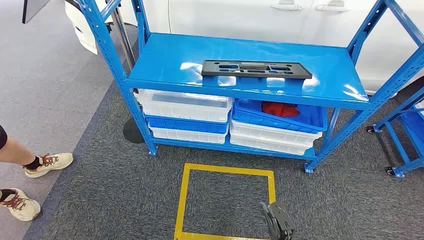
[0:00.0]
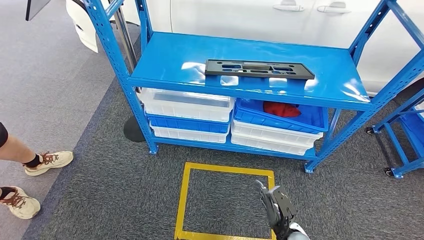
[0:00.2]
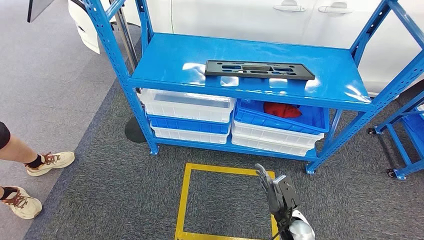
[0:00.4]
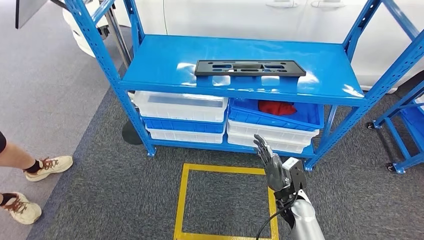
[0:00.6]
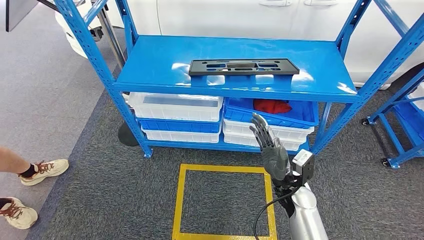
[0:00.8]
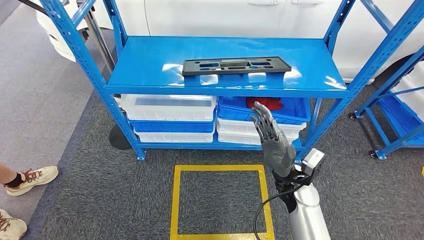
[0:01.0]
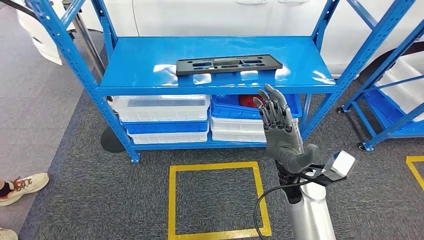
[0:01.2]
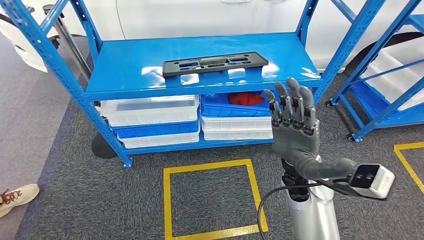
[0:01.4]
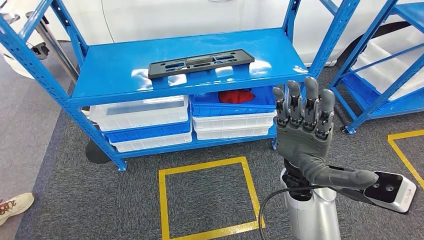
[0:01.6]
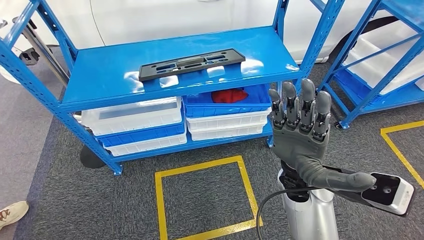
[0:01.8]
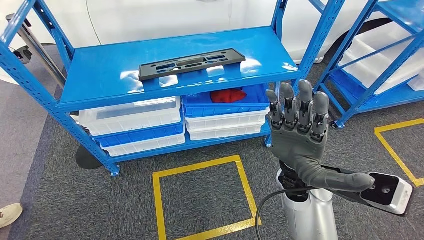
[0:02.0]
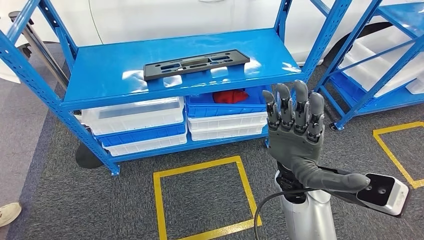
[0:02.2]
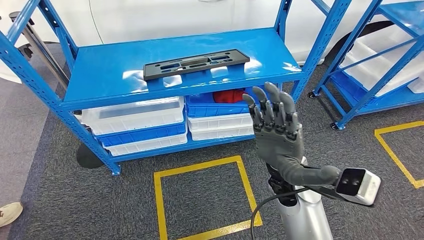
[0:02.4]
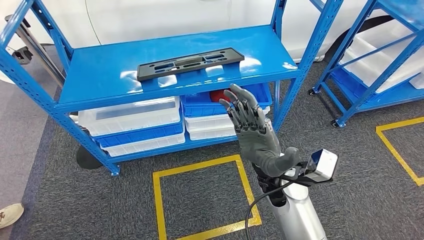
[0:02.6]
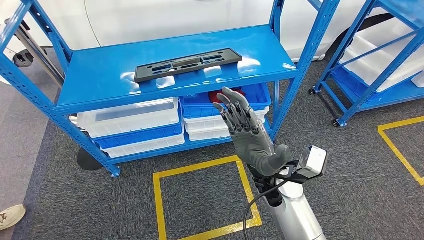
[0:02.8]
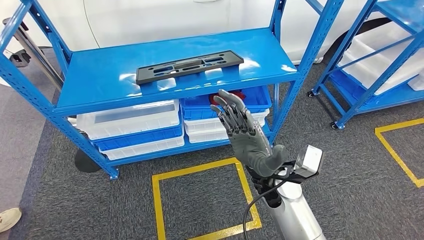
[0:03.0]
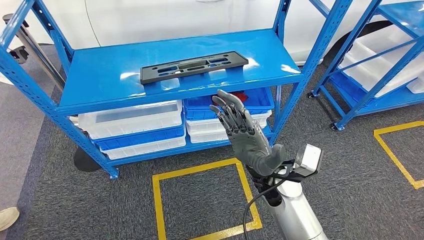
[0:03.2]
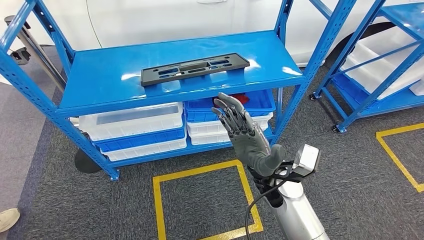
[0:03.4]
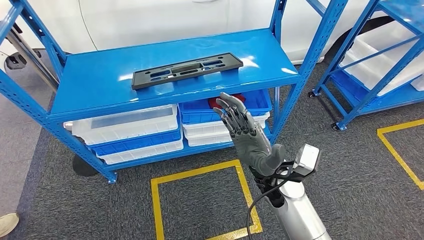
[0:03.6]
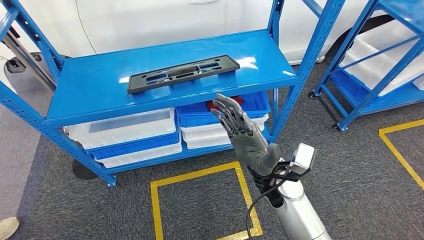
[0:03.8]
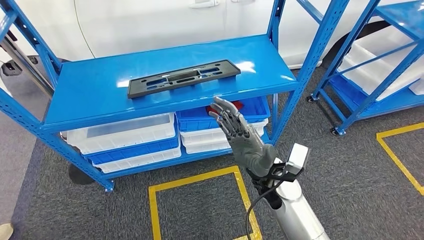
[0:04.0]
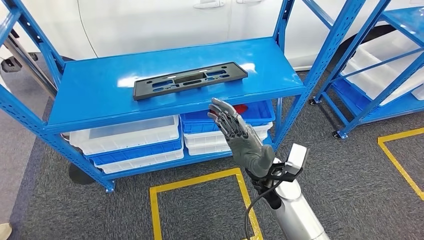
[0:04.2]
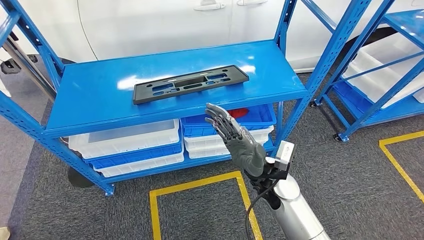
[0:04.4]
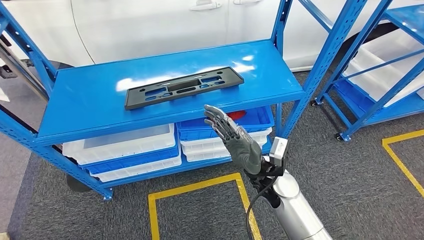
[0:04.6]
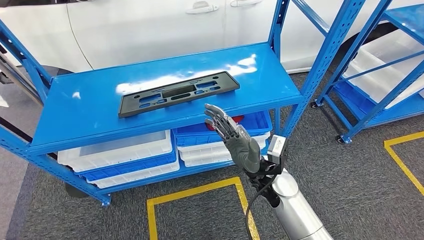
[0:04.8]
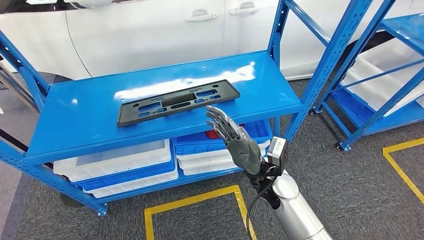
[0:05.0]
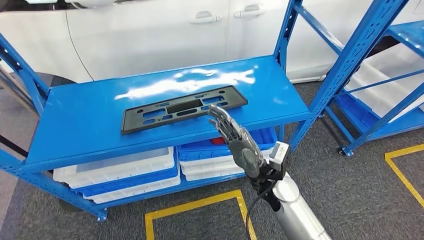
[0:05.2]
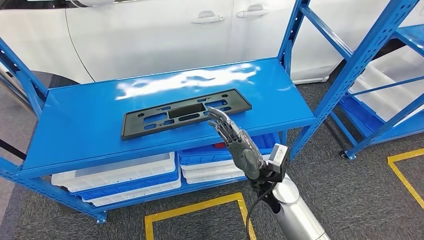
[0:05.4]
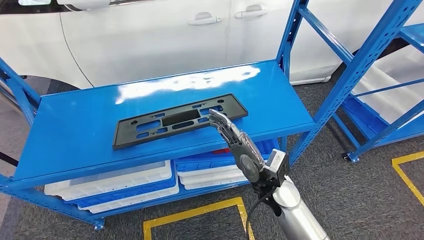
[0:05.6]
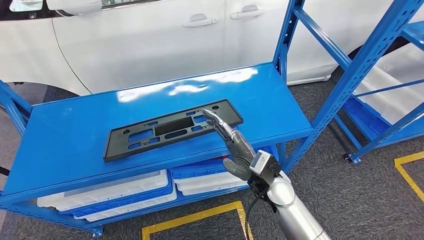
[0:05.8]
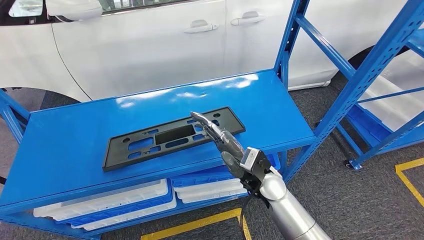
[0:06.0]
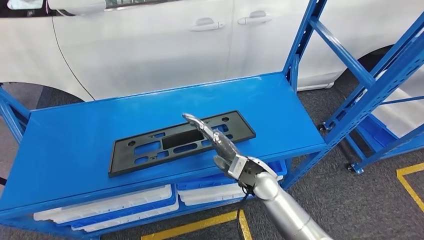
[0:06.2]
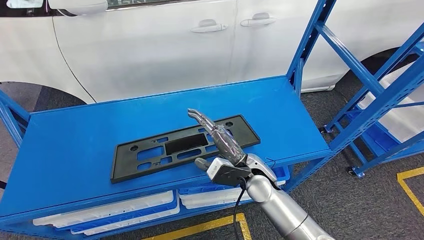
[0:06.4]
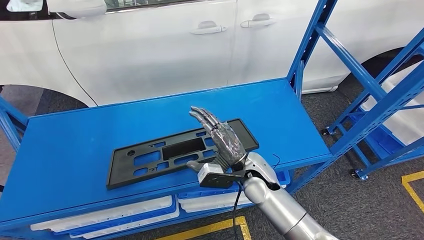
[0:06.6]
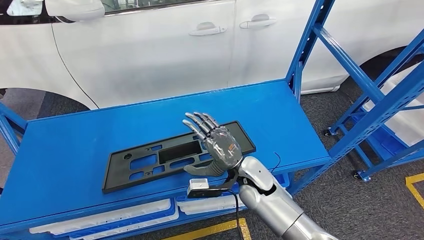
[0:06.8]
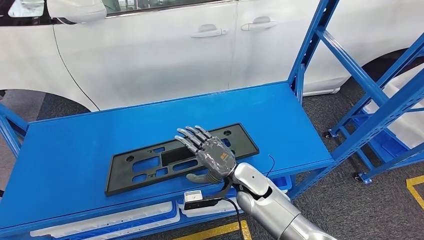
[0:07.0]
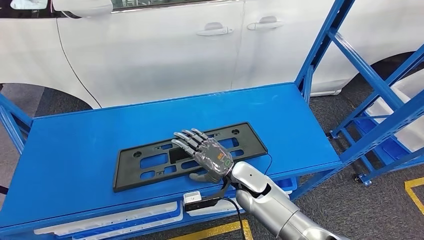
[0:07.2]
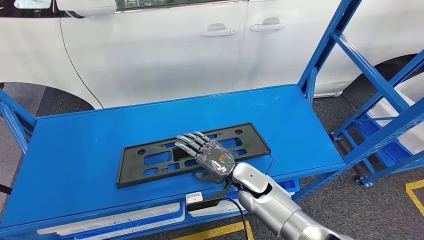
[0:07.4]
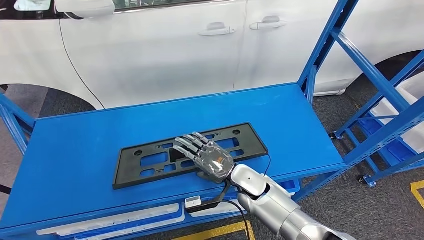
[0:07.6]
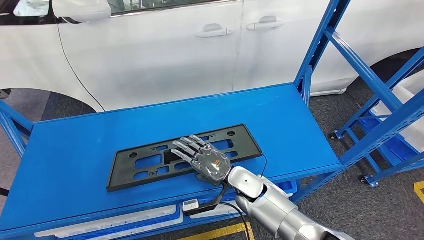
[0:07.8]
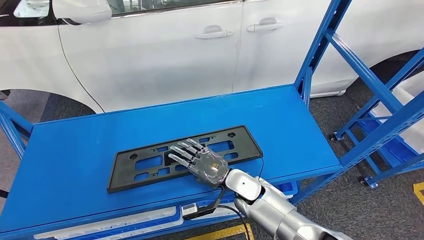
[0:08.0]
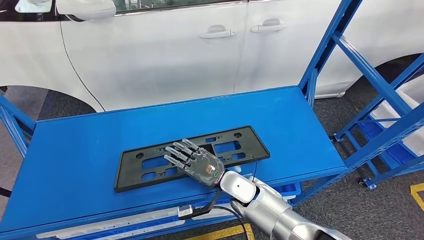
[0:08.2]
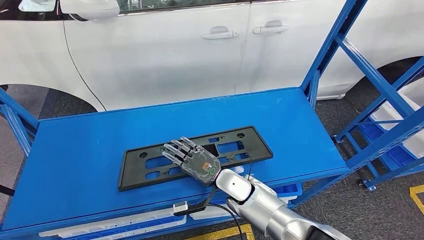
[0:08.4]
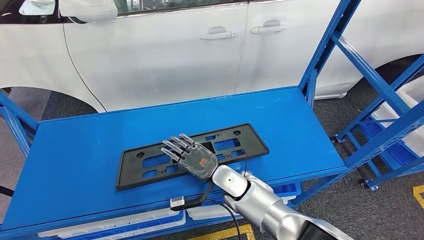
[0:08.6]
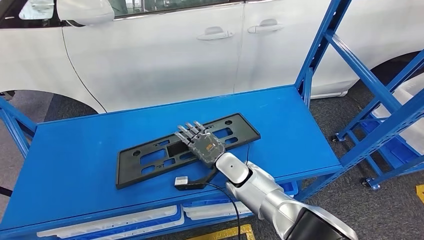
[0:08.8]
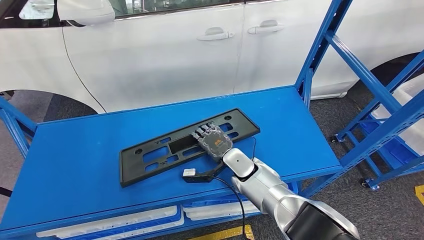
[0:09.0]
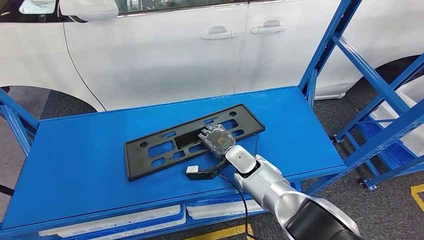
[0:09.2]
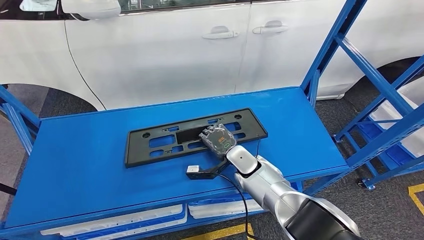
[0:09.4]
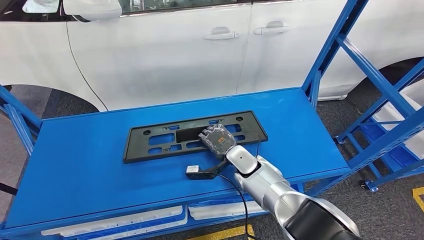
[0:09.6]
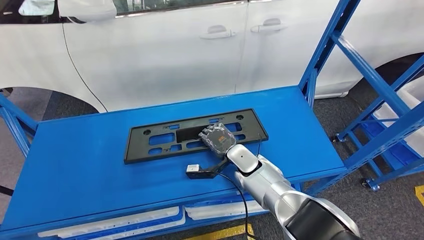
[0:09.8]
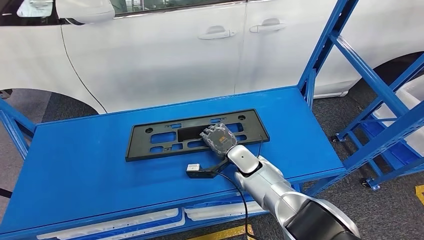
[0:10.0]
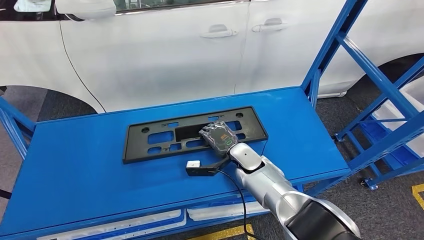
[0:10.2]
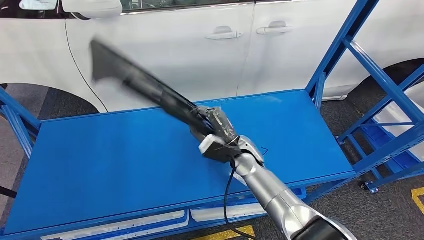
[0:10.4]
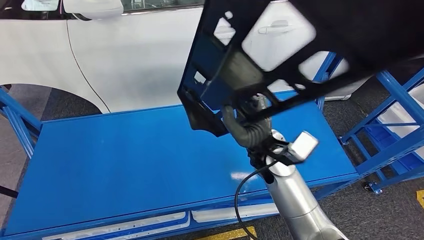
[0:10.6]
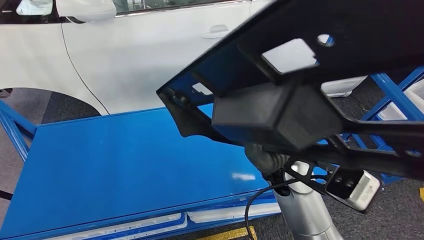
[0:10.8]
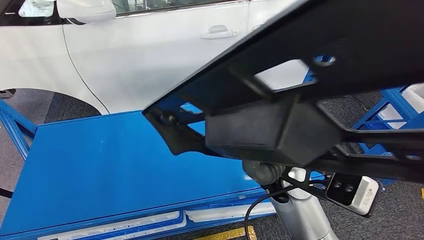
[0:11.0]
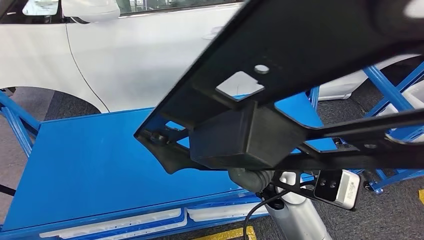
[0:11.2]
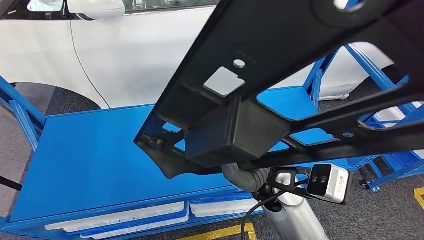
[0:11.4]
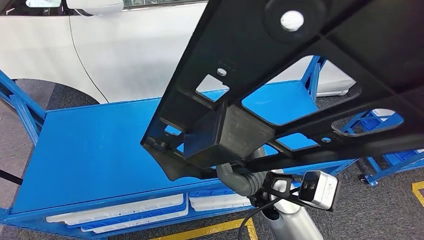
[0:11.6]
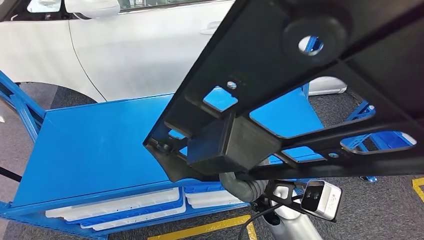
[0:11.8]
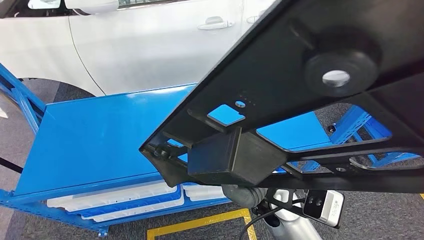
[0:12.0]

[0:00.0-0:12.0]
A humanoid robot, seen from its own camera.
Step, 0:00.0 to 0:11.6: Pick up the large parts from the shelf.

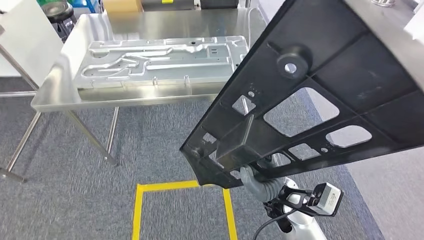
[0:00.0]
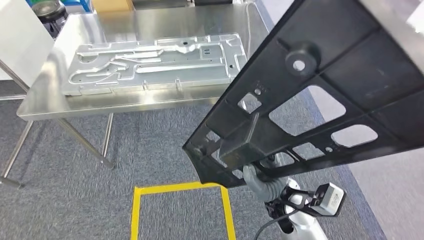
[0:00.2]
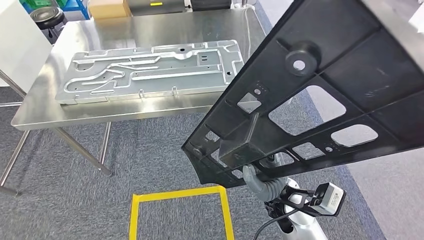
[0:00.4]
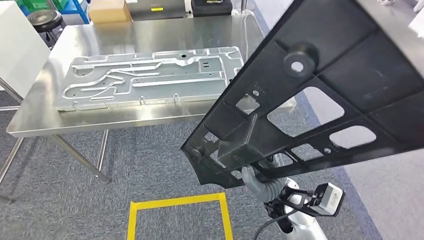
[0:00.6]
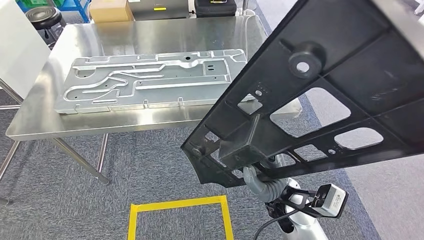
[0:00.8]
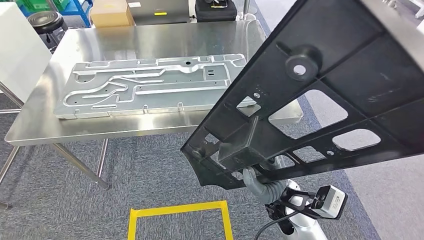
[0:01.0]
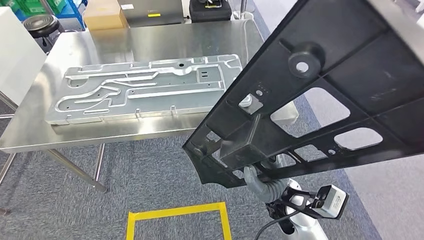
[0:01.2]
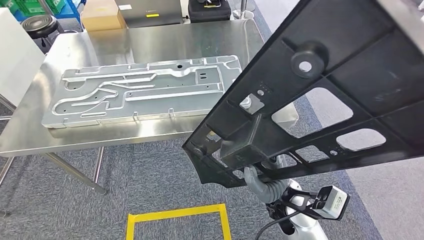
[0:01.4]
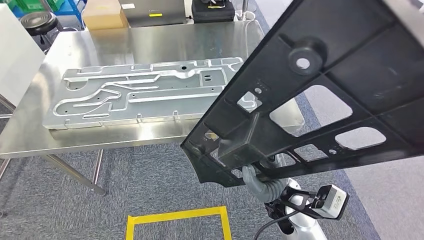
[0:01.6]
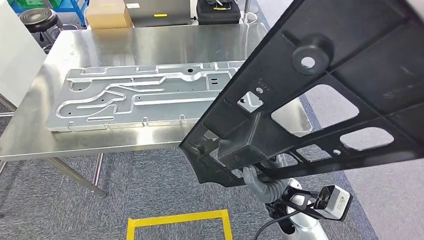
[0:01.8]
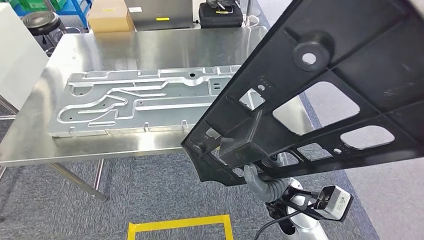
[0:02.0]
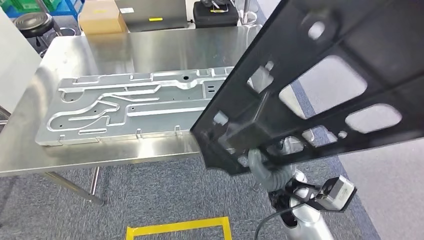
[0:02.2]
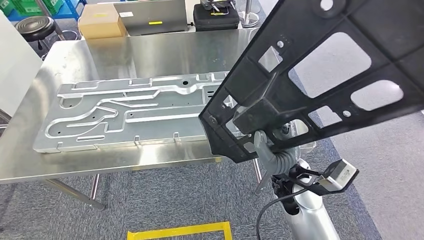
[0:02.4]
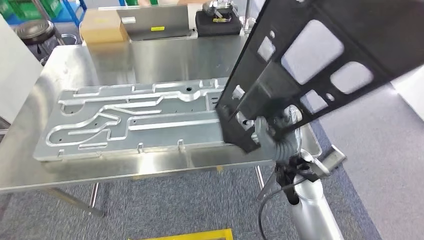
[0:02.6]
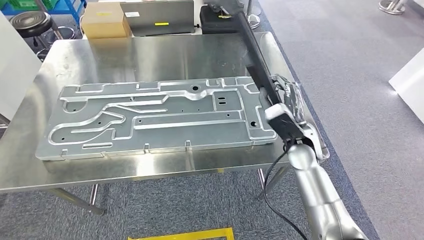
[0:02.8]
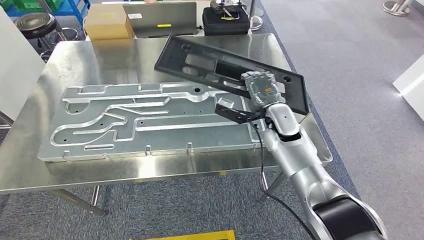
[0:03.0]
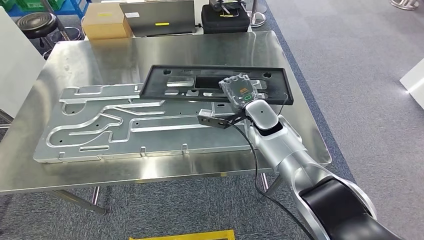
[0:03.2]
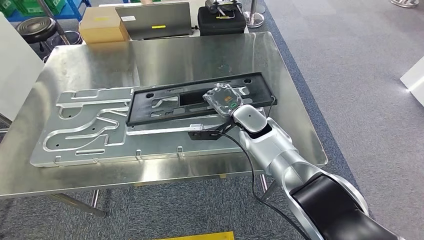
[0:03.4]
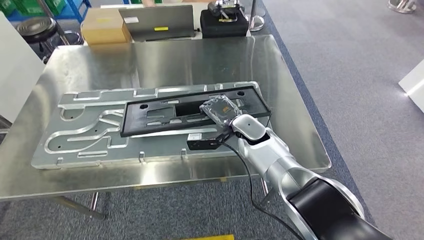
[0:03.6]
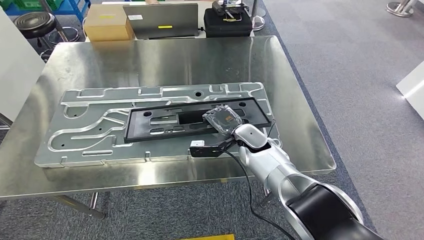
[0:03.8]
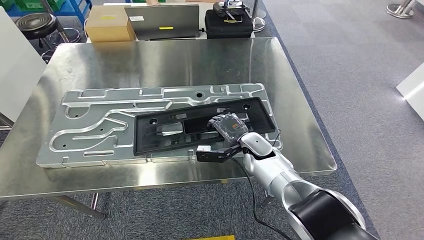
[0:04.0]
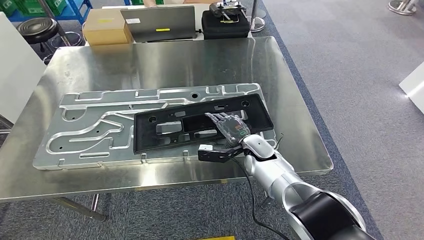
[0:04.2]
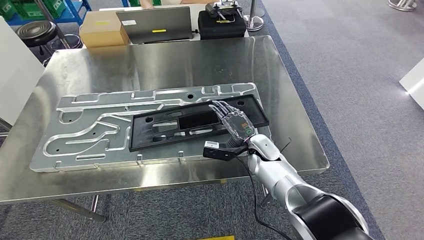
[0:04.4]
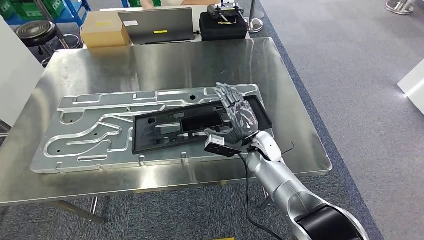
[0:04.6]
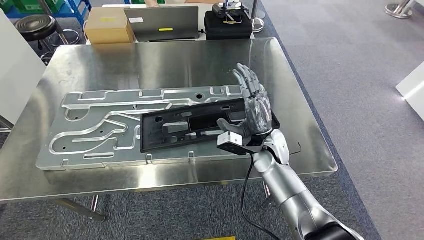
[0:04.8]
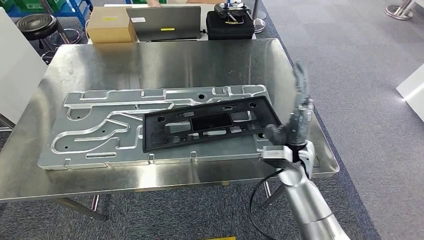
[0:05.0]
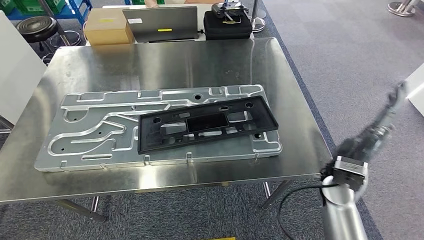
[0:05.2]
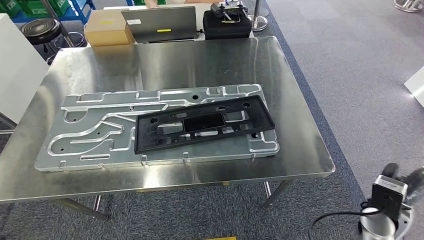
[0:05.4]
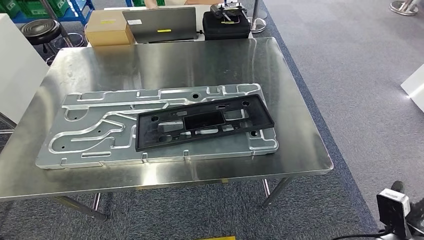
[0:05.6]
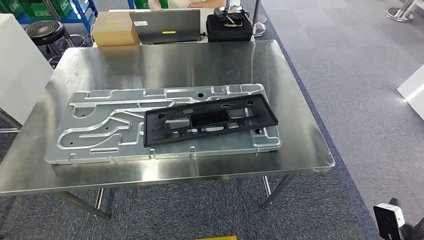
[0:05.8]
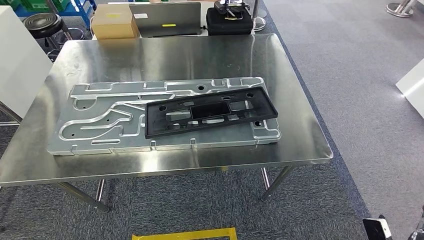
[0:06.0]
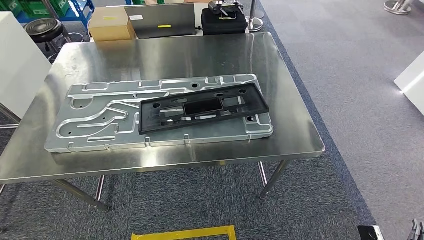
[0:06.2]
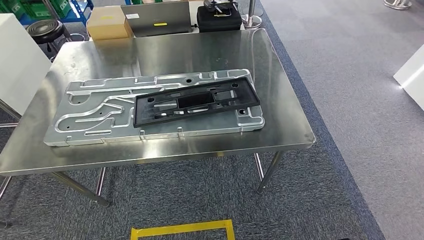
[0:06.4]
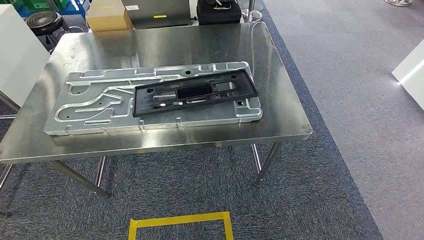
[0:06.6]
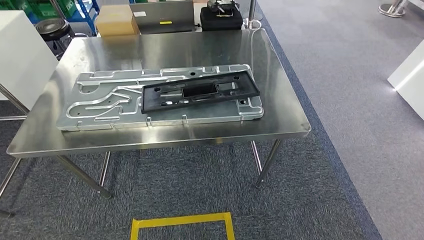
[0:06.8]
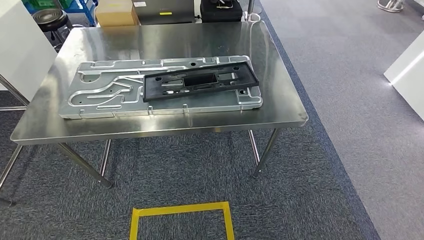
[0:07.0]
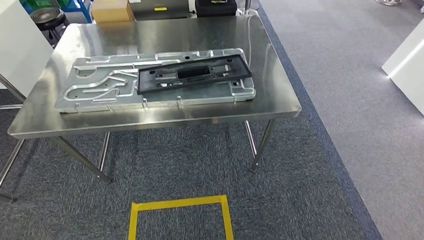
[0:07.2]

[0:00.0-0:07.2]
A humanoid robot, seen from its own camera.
Step, 0:00.0 to 0:02.0: Move the large parts to the workbench.
Step, 0:03.2 to 0:05.8: Insert the large parts into the corresponding slots on the workbench.
